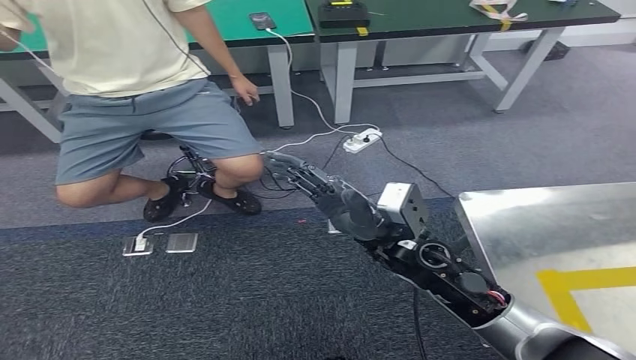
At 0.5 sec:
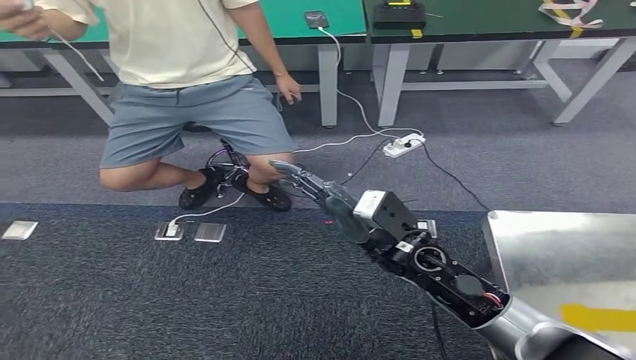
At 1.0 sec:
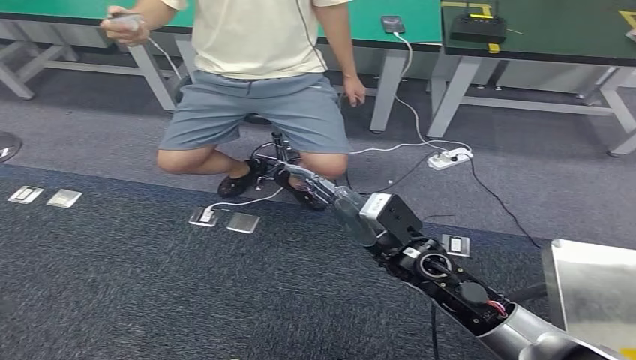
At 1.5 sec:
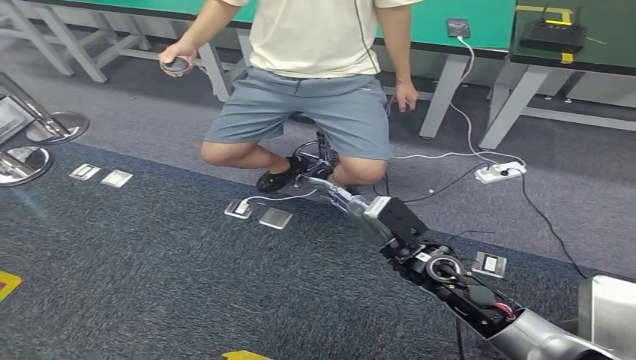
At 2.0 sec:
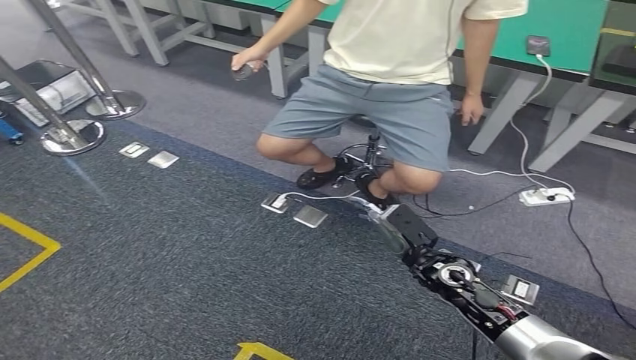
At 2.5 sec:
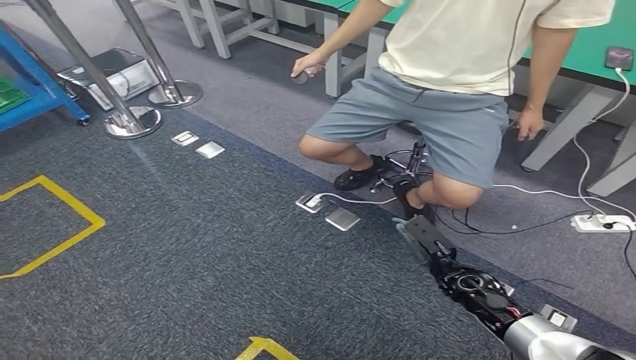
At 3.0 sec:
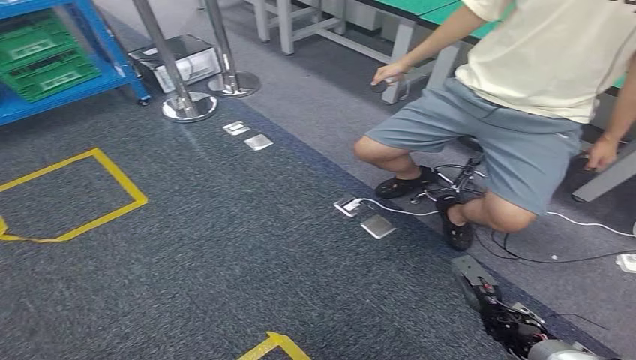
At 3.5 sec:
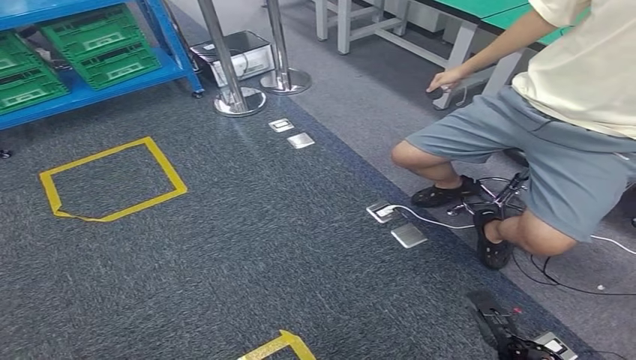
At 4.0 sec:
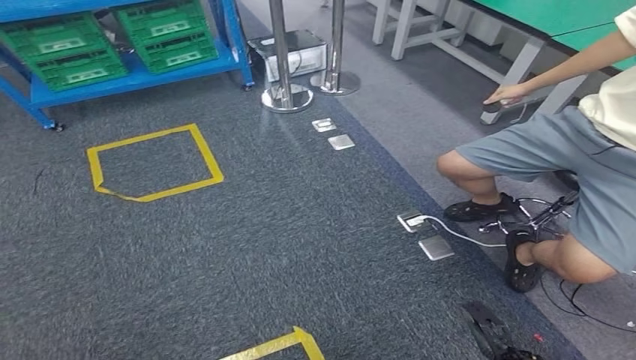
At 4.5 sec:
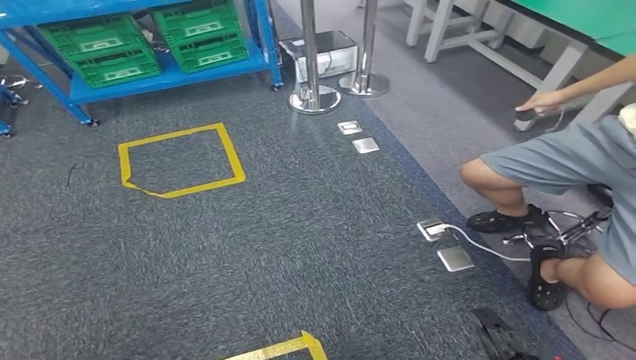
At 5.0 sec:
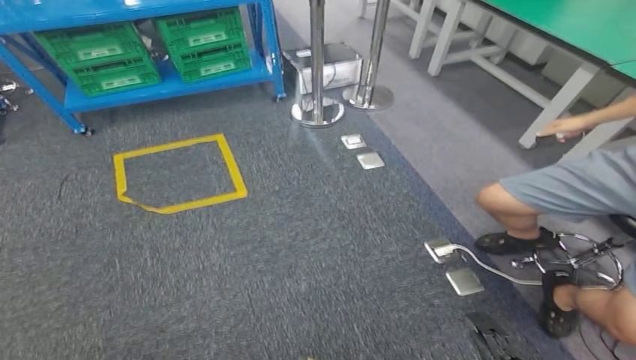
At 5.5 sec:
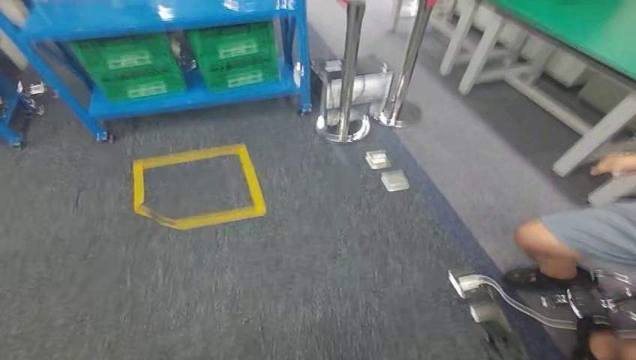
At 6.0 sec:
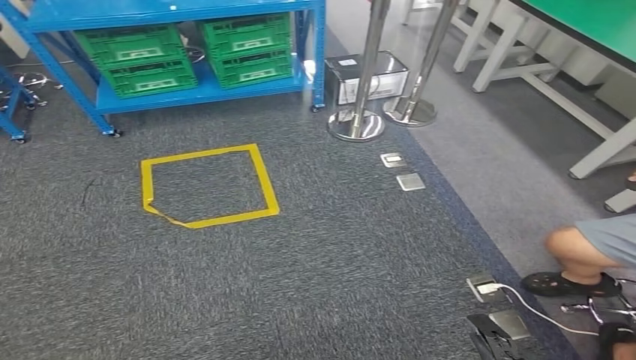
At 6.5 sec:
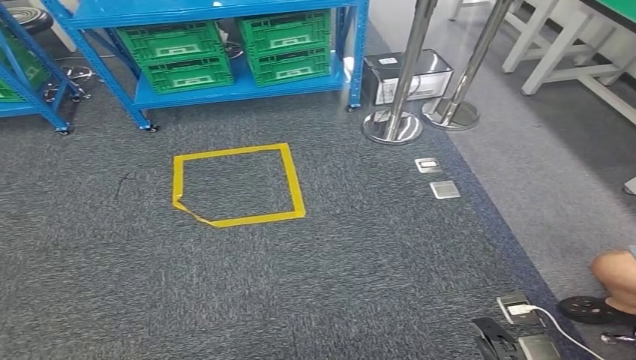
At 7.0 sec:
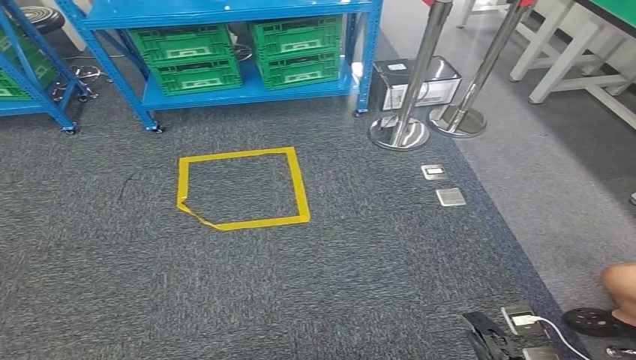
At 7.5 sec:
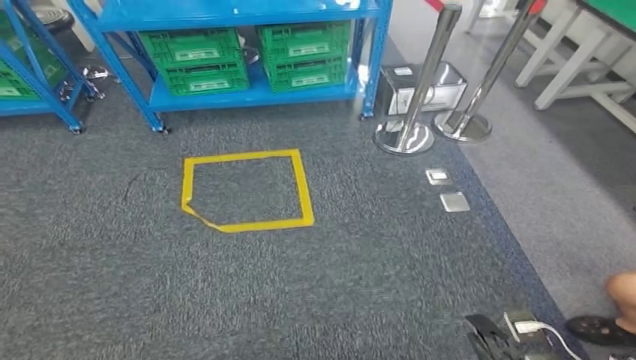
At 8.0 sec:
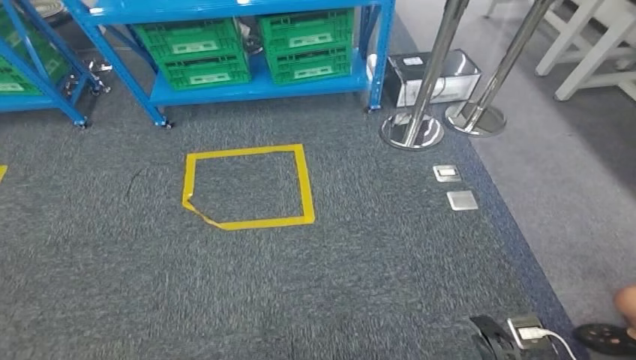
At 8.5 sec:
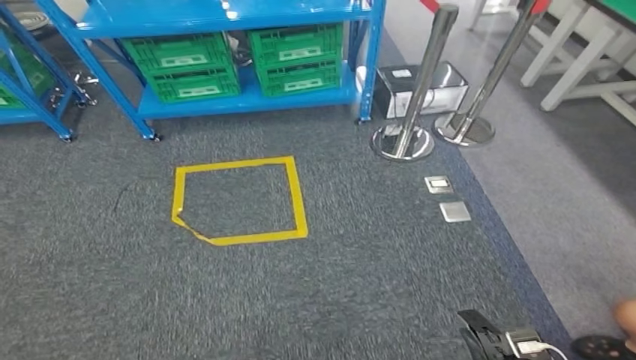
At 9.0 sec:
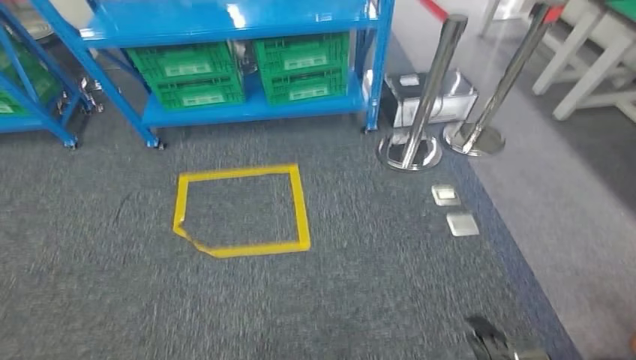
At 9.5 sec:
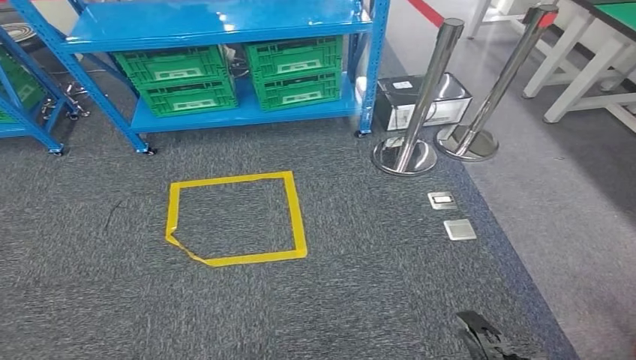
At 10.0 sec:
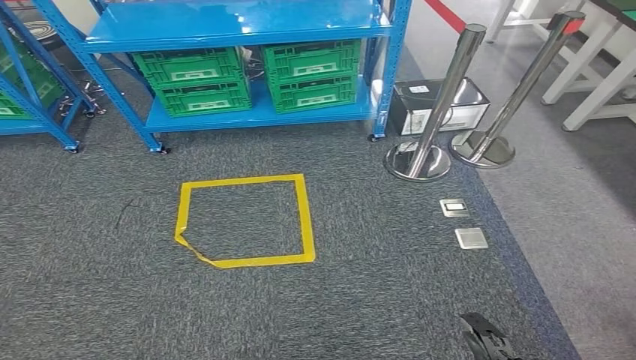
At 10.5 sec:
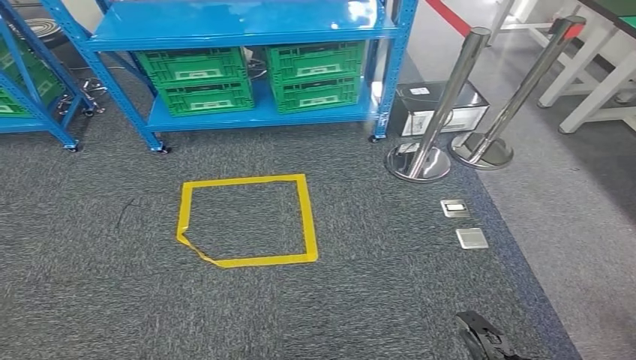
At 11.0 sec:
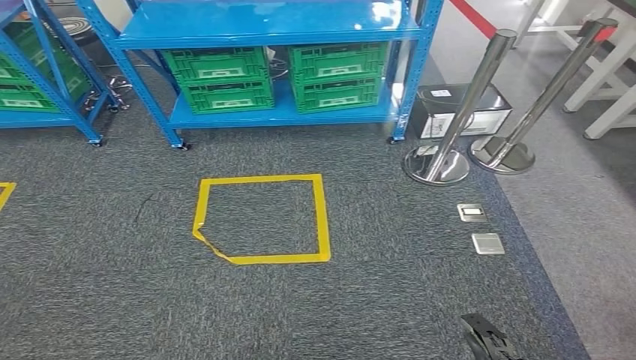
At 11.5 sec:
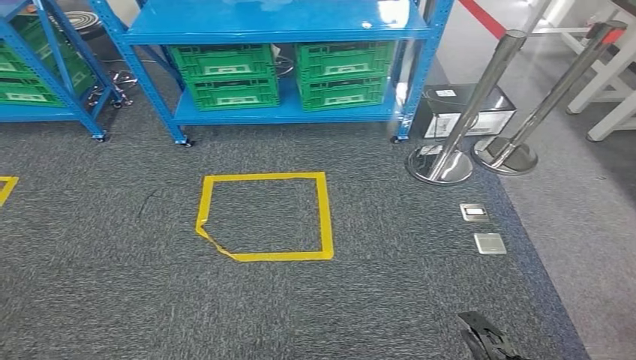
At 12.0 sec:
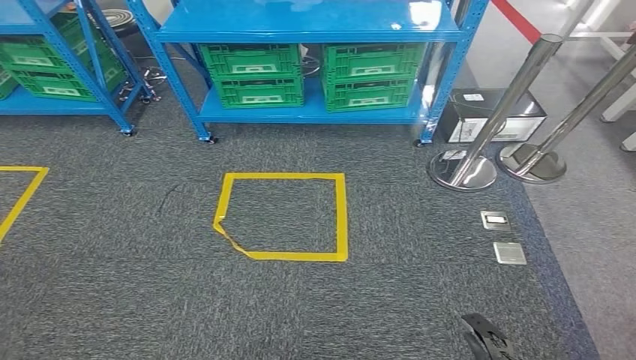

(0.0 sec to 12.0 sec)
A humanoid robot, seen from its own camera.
Step, 0.0 sec - 3.0 sec: Insert the small component into the corresponding slot on the workbench.

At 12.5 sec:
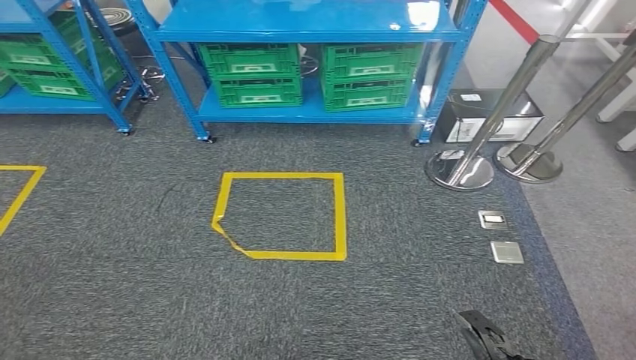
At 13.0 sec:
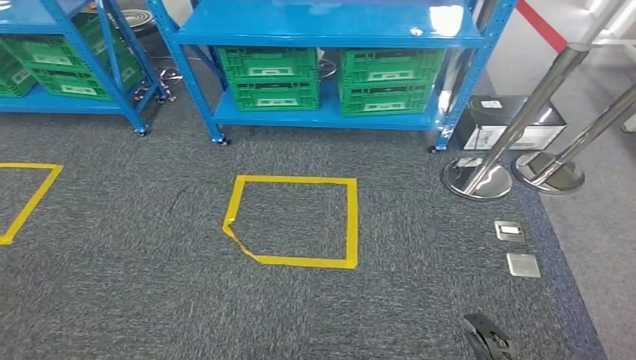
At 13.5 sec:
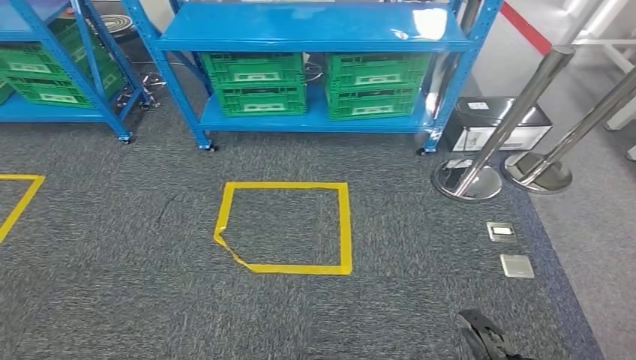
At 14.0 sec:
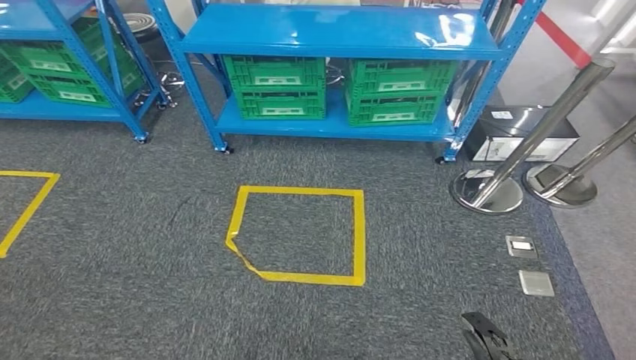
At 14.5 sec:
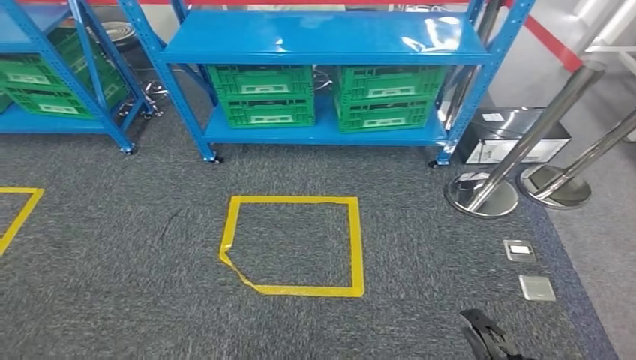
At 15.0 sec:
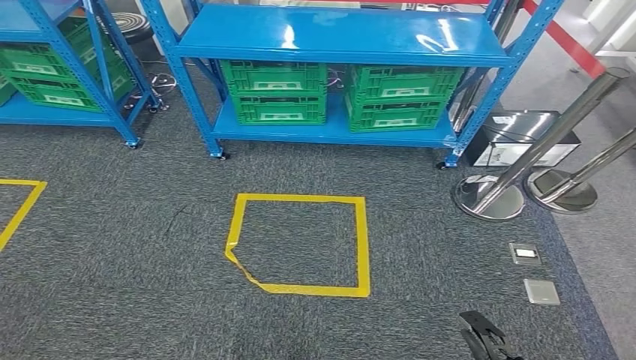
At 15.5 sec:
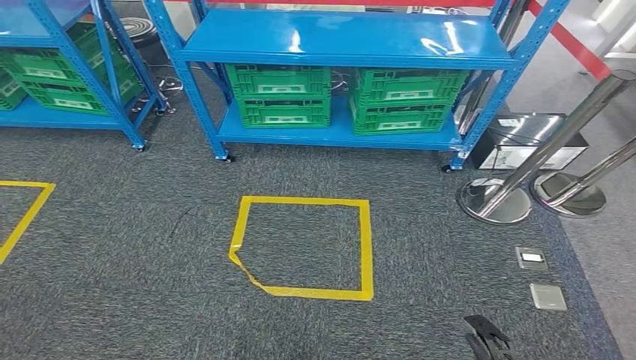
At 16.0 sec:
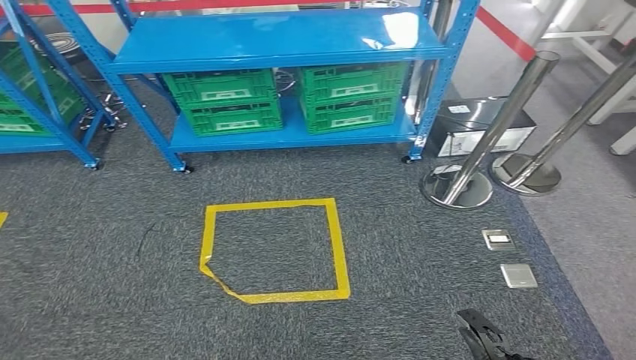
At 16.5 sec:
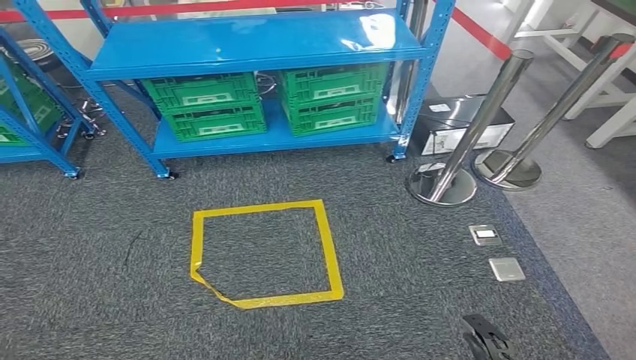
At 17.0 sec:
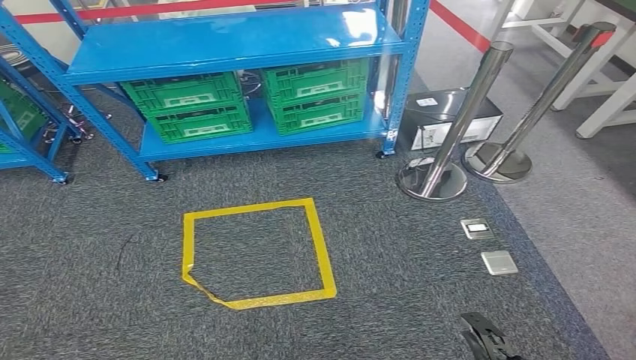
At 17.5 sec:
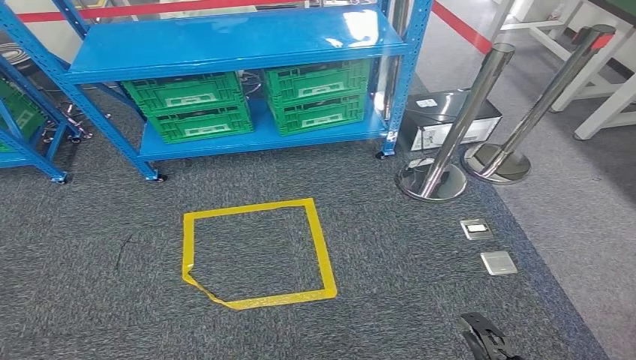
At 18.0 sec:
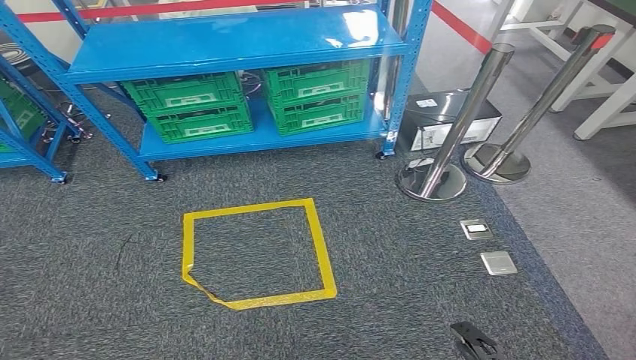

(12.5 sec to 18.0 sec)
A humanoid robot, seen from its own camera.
Step, 12.5 sec - 18.0 sec: Return to the initial position at the workbench.
